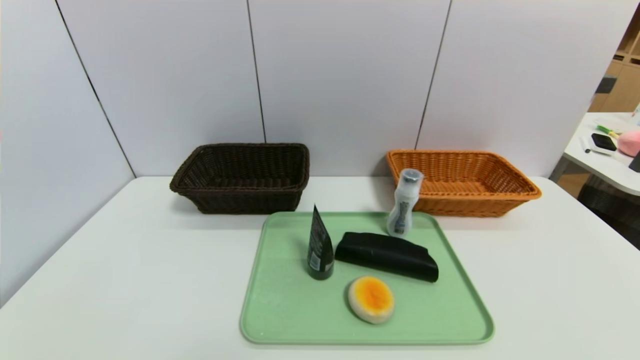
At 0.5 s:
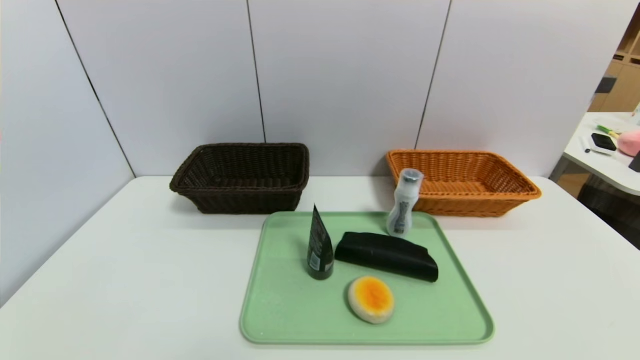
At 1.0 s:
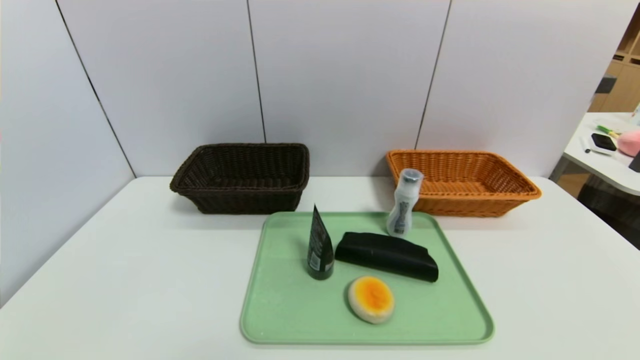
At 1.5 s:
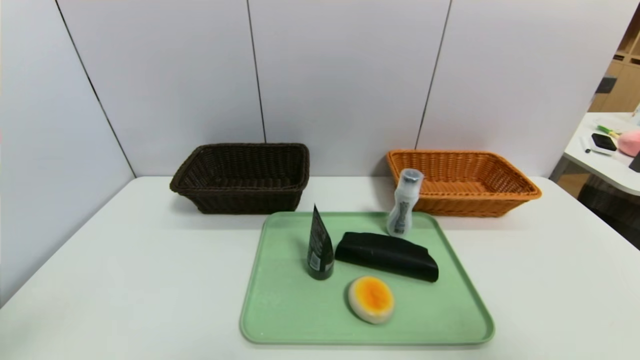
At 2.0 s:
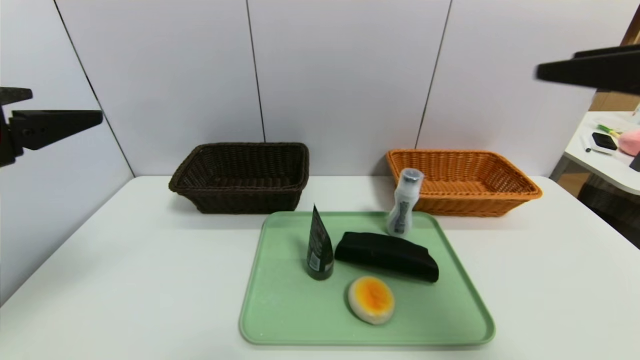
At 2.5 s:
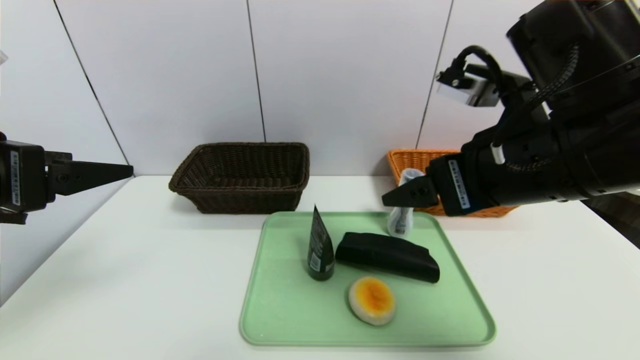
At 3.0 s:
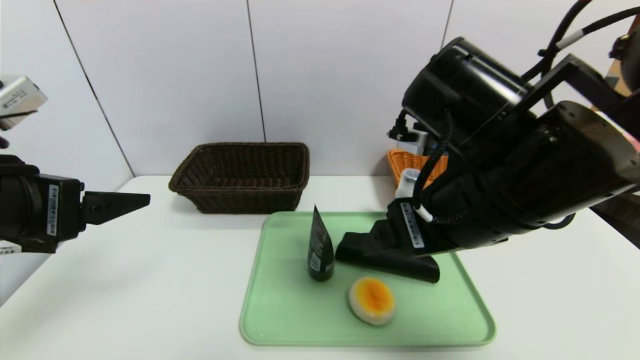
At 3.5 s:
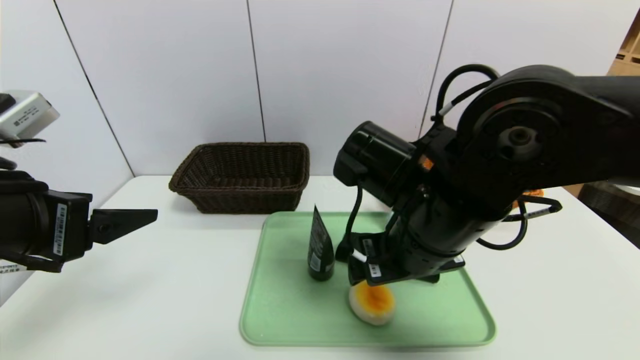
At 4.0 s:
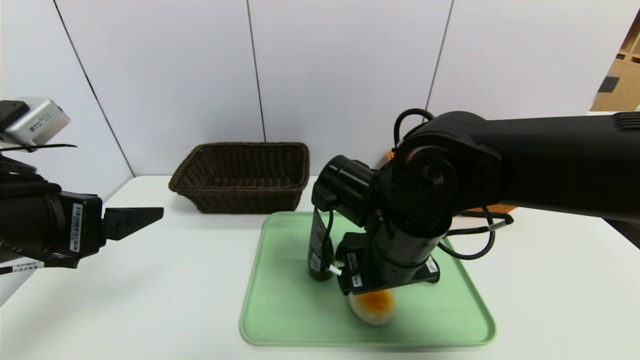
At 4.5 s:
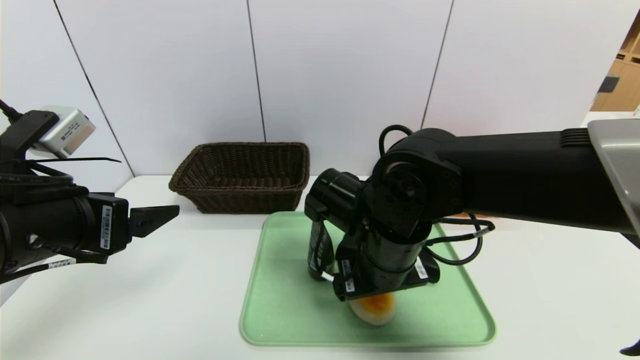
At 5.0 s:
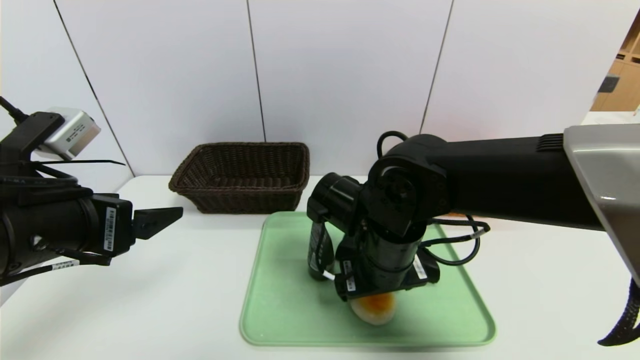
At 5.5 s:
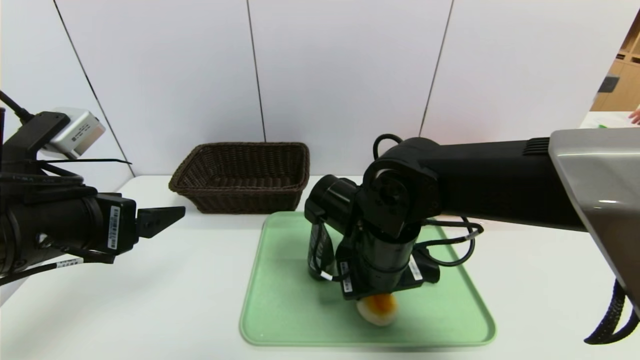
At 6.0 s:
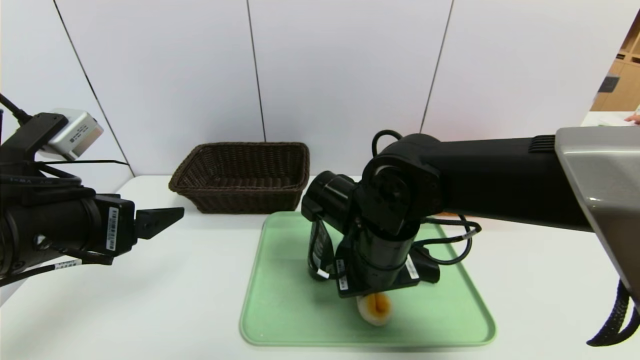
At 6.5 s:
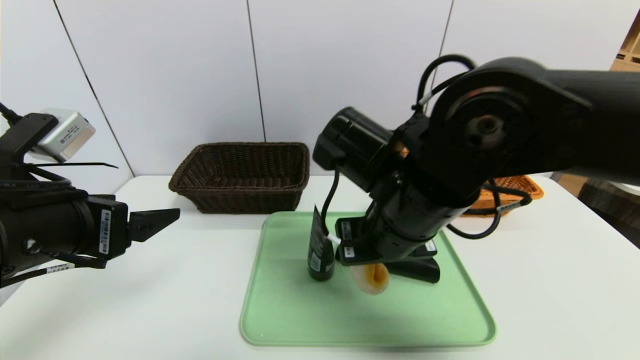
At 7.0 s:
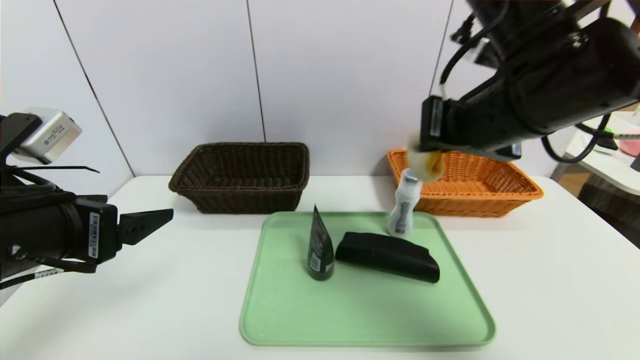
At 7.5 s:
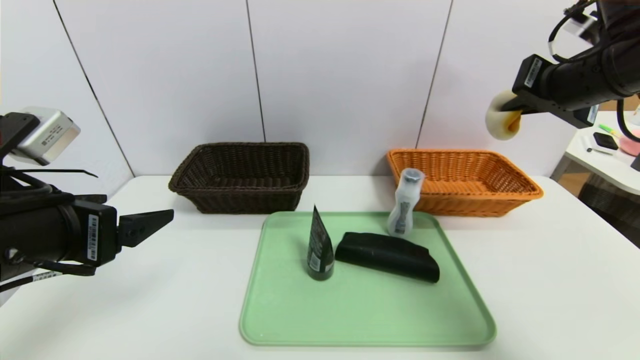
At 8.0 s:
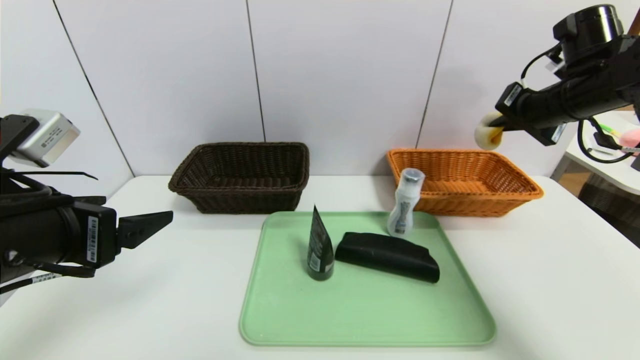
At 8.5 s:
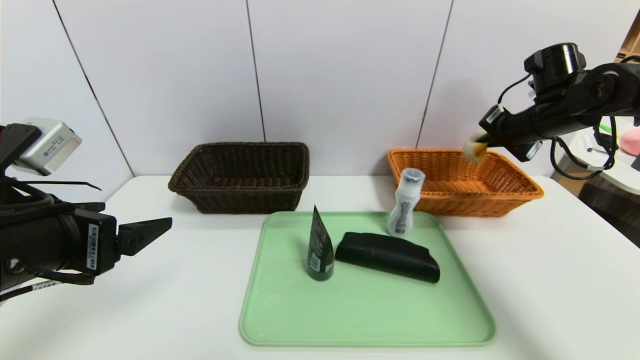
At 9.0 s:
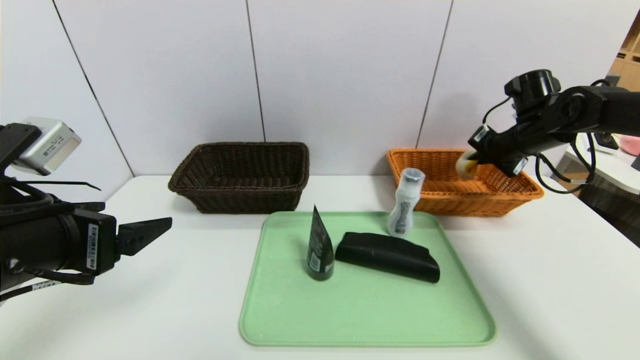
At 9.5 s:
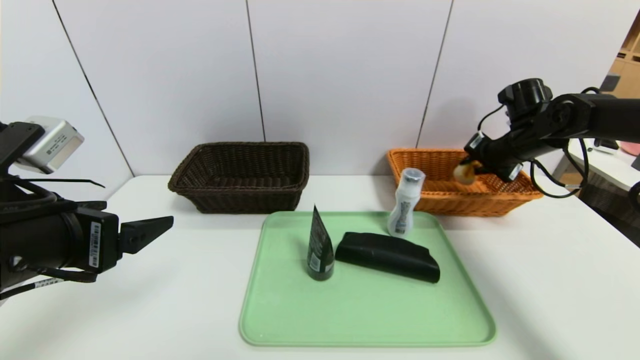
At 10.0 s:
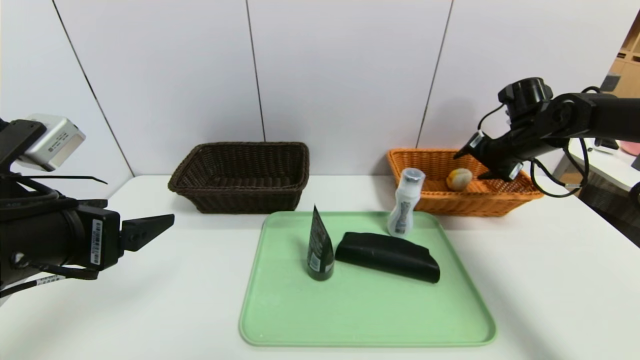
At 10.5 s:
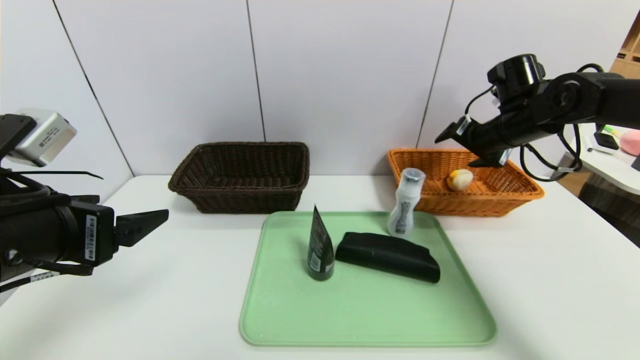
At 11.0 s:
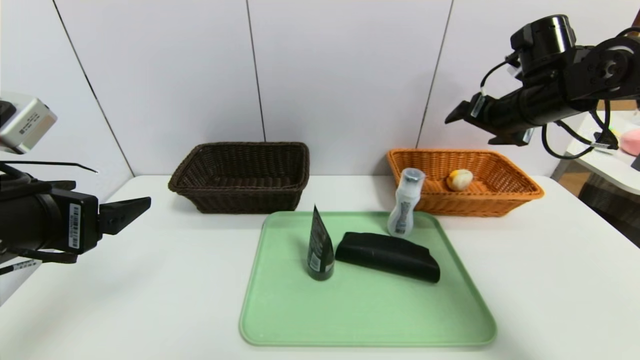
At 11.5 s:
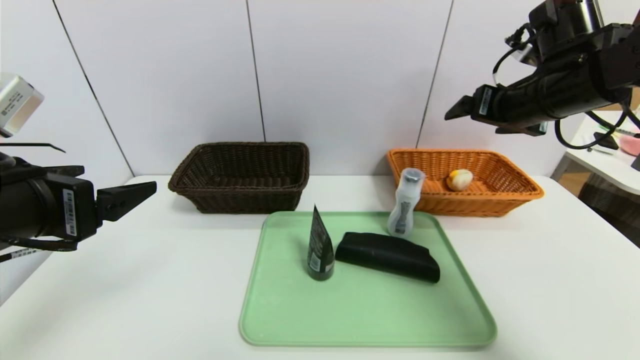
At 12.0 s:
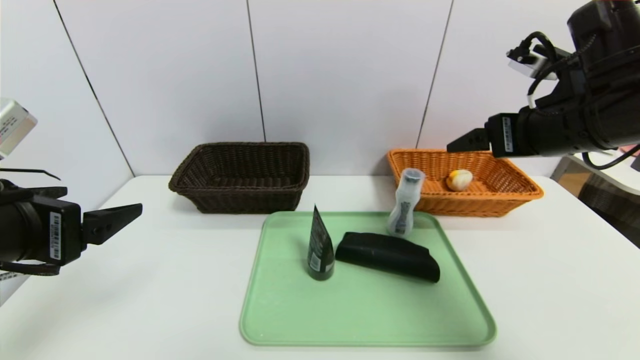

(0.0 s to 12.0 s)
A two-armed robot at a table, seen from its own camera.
Task of the whole recording: place the food in the right basket with the right gripper, and place the non food items in the left basket with the left gripper.
Step, 0.0 s - 10.5 s: Grasp the egg yolk pastry and put it in the right basket.
0.0 s - 2.0 s: The grippers both shift upward and forward by roughly 30 cm.
2.0 s - 4.0 s: The left gripper shifts about 5 cm downward. Meanwhile the right gripper is displaced to the left, downward and forward by roughly 30 cm.
4.0 s - 6.0 s: The right gripper closes its fingers.
6.0 s - 8.0 s: The right gripper moves to the right, upward and forward, about 30 cm.
8.0 s - 10.0 s: The right gripper shifts some 10 cm downward and forward, and opens its fingers.
10.0 s - 12.0 s: The right gripper travels backward, upward and to the left by about 20 cm.

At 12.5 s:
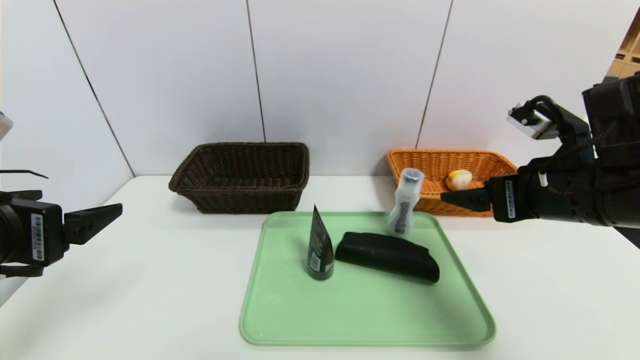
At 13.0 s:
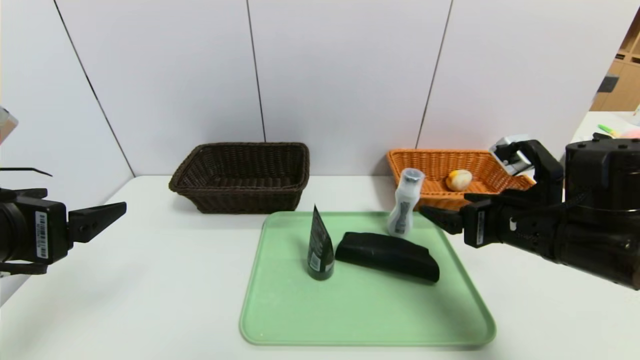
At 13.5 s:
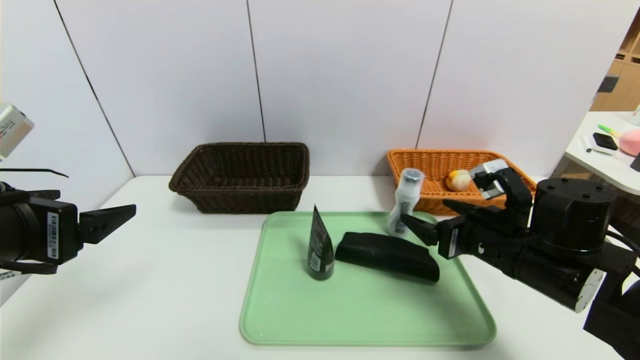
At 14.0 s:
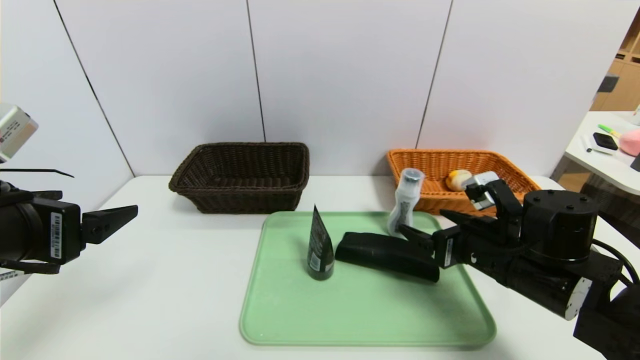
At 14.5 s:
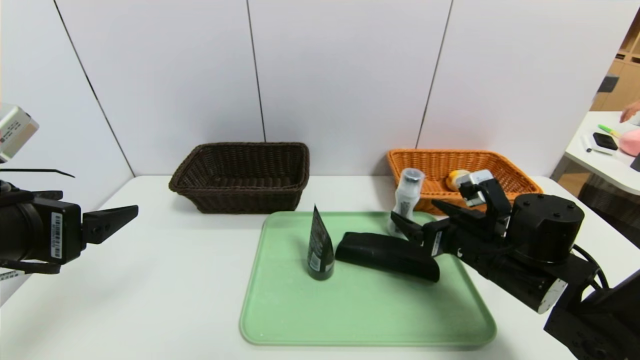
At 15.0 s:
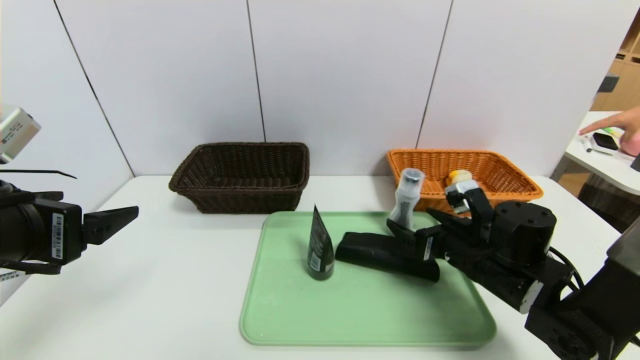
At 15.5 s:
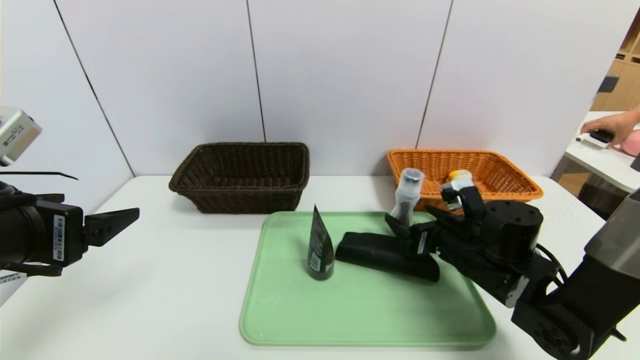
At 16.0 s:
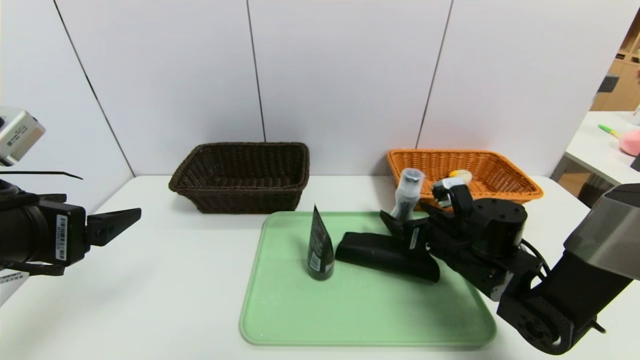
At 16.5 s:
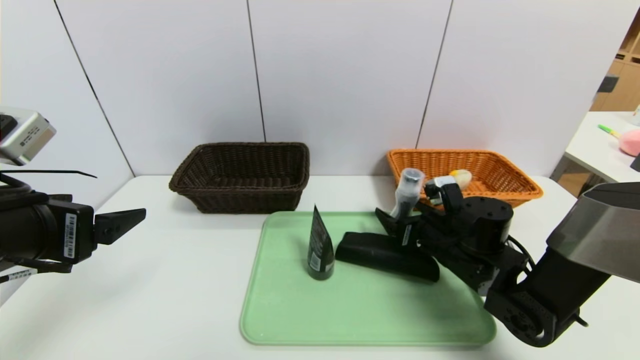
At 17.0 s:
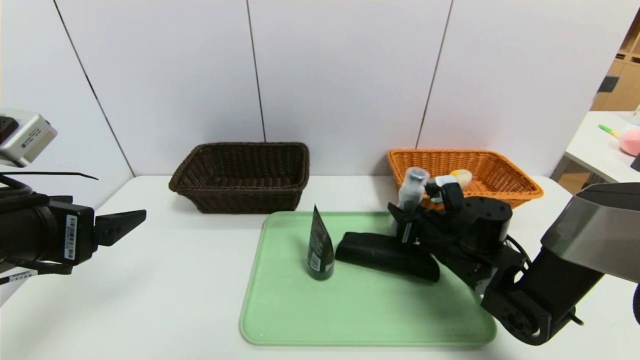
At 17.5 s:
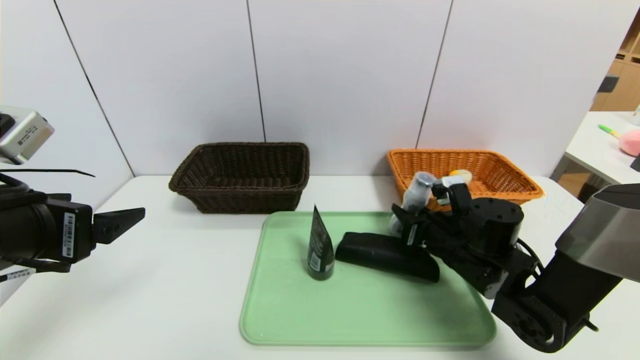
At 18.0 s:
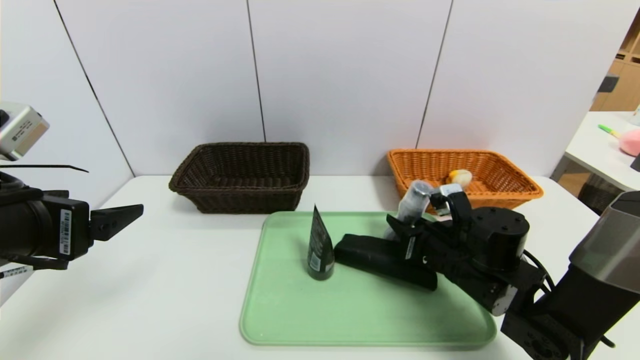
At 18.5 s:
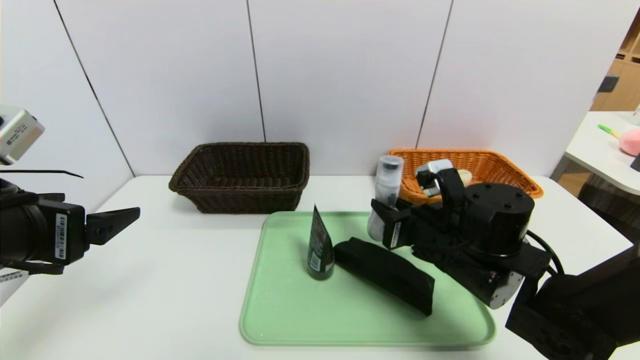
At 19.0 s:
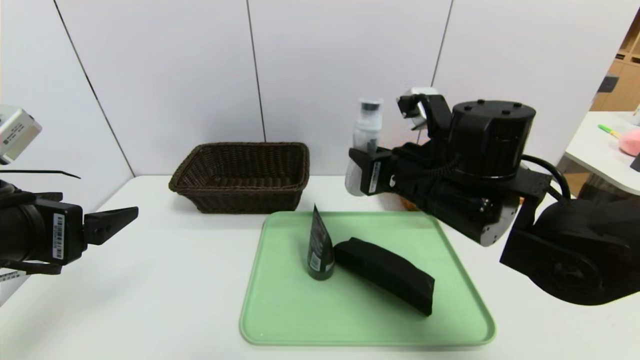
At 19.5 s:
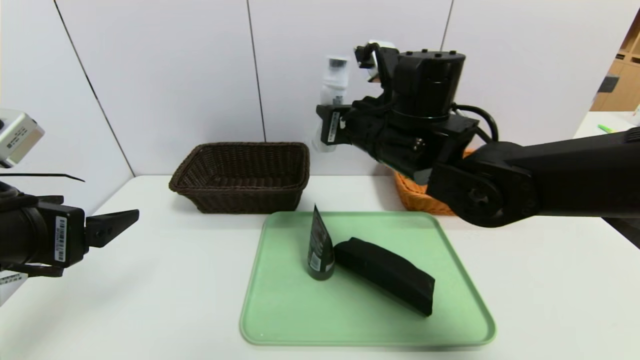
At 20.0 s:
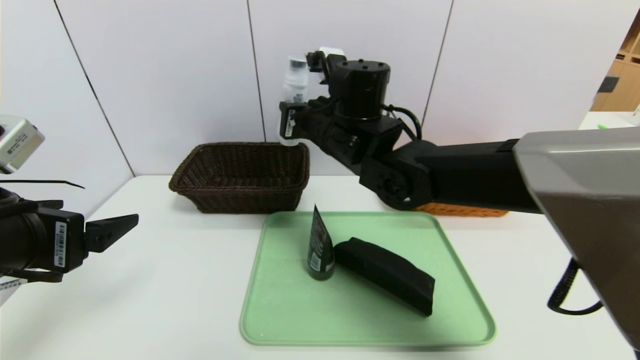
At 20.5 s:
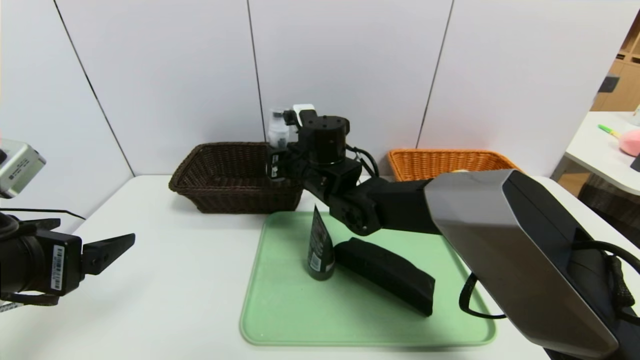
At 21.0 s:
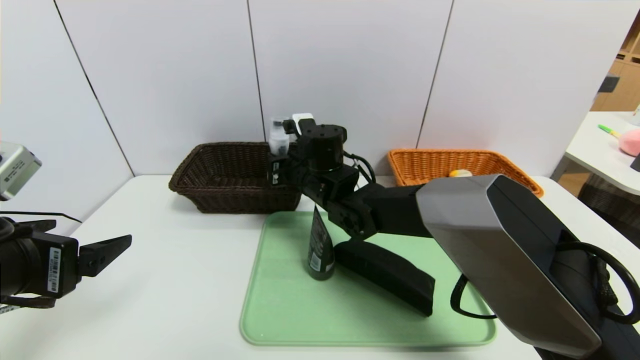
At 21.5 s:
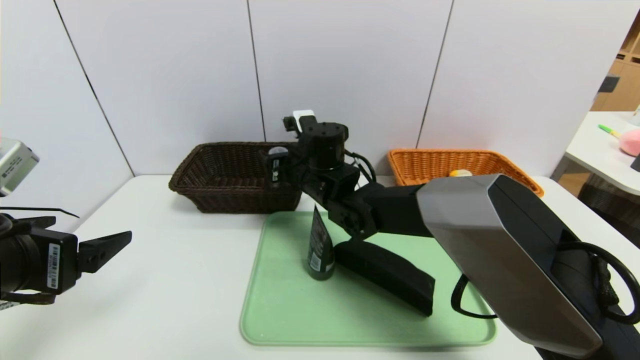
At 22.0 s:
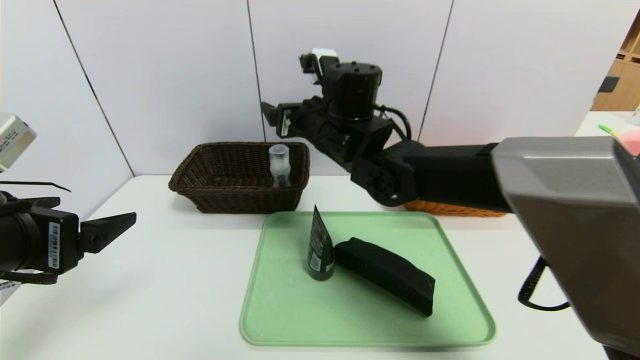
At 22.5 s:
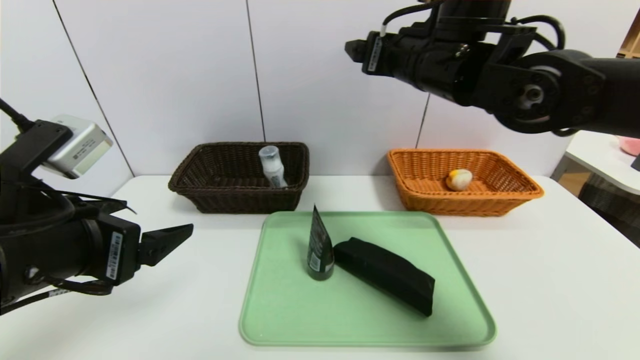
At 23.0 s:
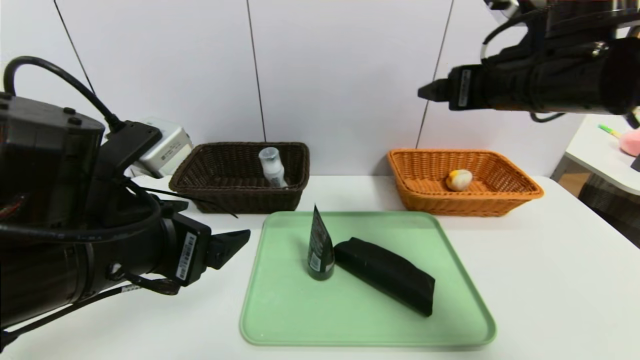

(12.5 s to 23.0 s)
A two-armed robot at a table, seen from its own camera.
Task of the whole recording: place the food in the right basket with the right gripper, and place the non food items in the left basket with the left gripper.
12.5 s - 14.5 s: The right gripper shifts approximately 15 cm downward.
14.5 s - 16.5 s: The right gripper shifts by approximately 5 cm.
16.5 s - 19.0 s: The right gripper shifts some 15 cm upward and to the left, and closes up.
19.0 s - 21.0 s: The right gripper travels to the left, forward and downward by approximately 20 cm.
21.0 s - 23.0 s: The right gripper heads to the right, upward and backward, covering roughly 30 cm, and opens its fingers. Meanwhile the left gripper travels to the right by roughly 10 cm.
